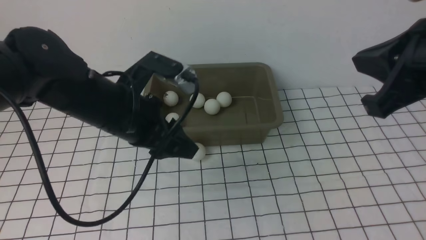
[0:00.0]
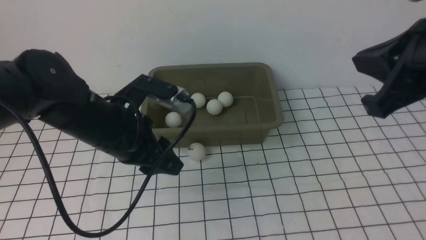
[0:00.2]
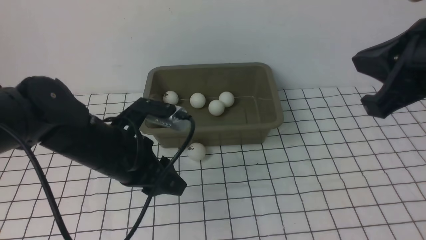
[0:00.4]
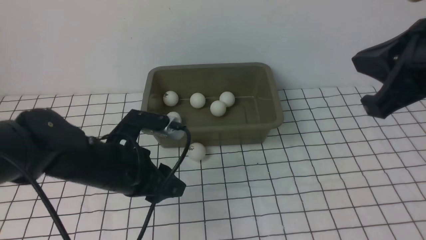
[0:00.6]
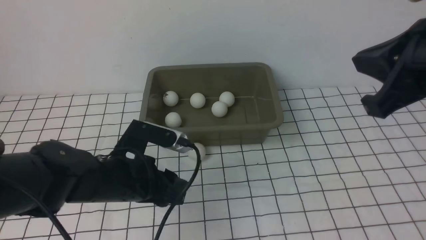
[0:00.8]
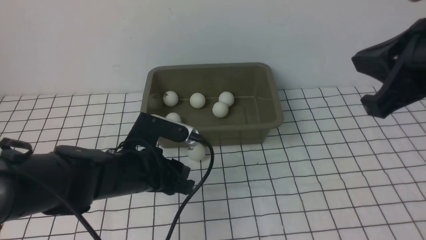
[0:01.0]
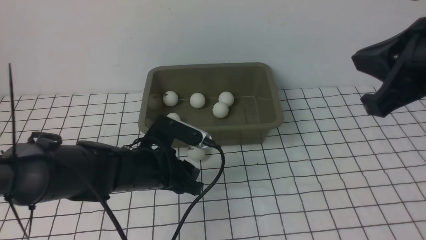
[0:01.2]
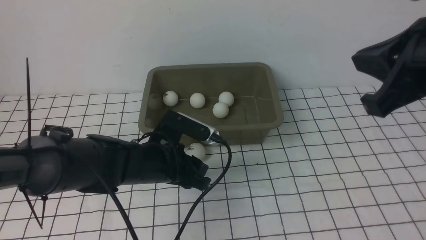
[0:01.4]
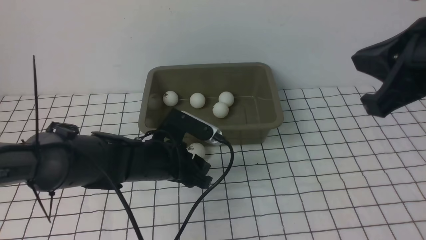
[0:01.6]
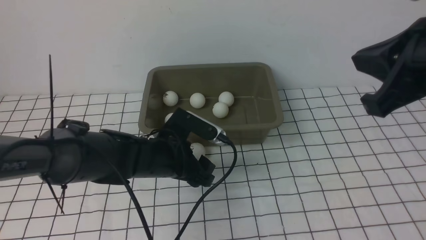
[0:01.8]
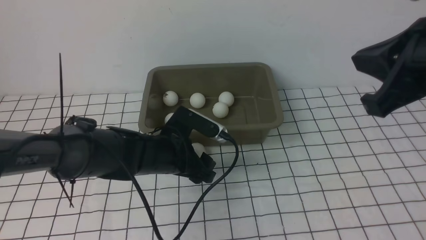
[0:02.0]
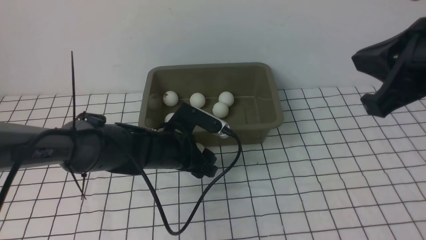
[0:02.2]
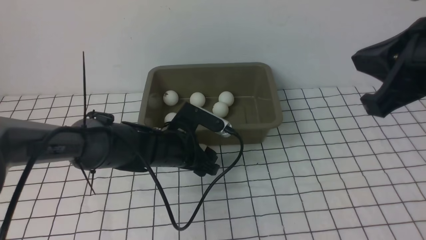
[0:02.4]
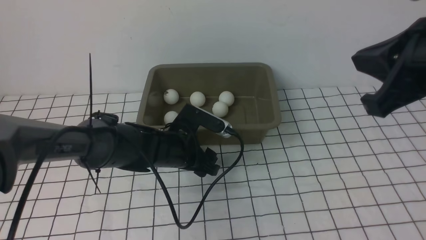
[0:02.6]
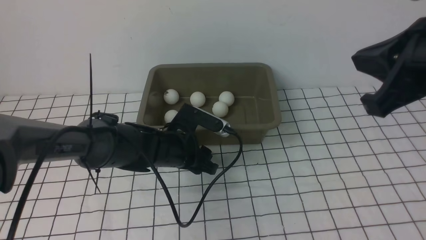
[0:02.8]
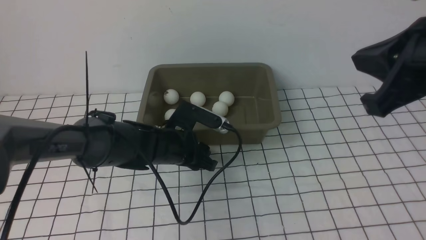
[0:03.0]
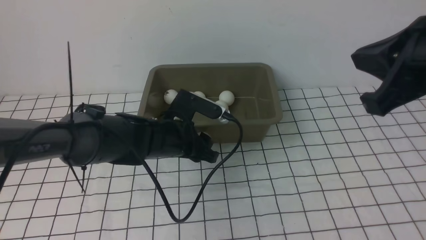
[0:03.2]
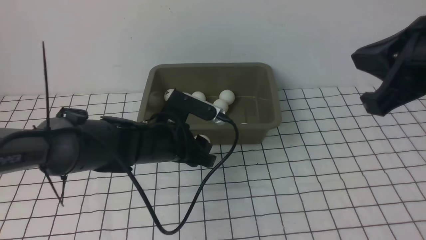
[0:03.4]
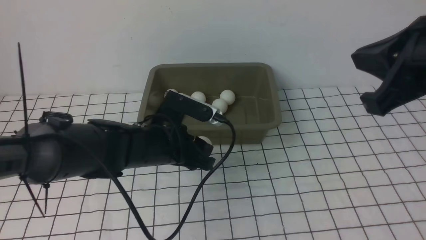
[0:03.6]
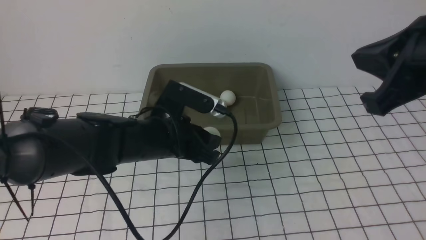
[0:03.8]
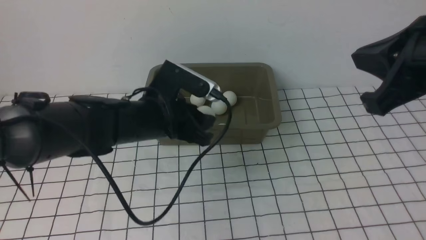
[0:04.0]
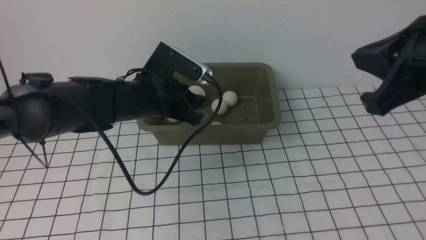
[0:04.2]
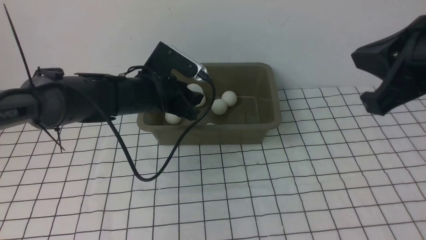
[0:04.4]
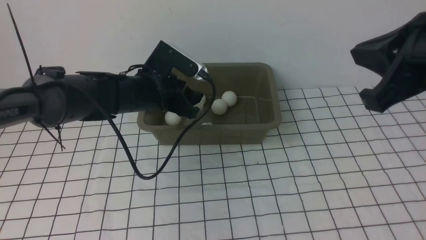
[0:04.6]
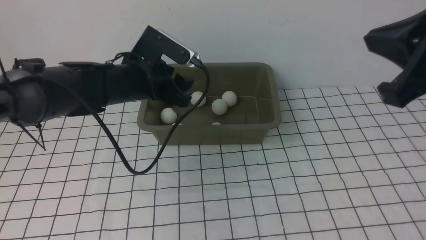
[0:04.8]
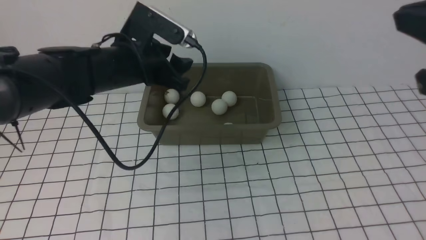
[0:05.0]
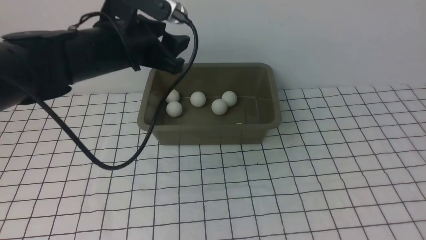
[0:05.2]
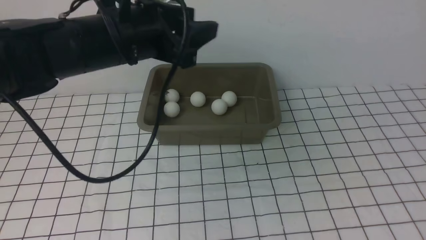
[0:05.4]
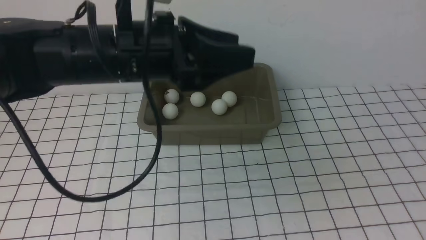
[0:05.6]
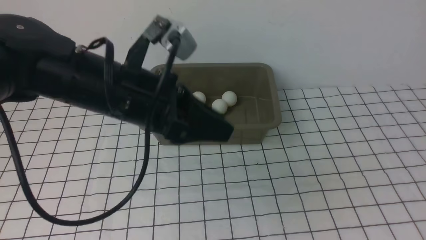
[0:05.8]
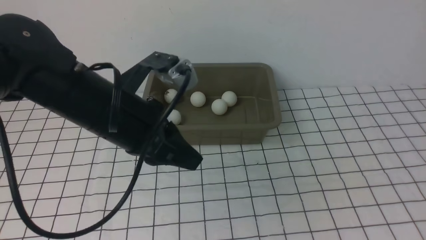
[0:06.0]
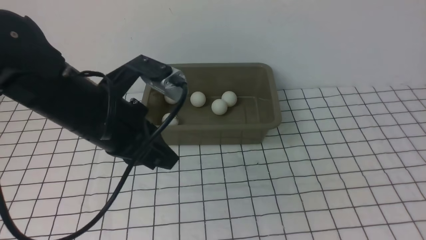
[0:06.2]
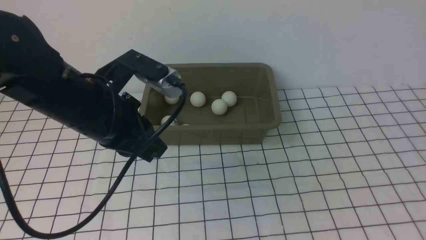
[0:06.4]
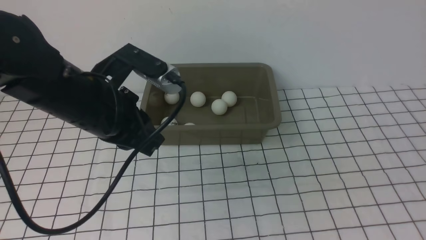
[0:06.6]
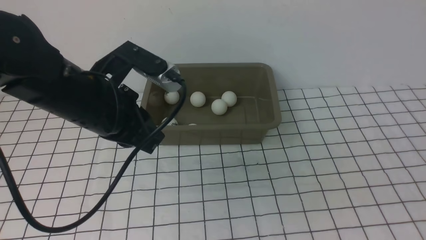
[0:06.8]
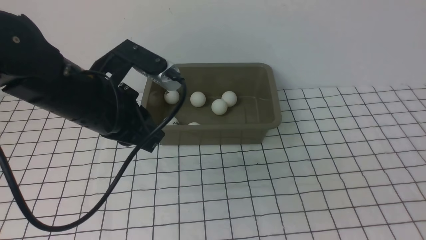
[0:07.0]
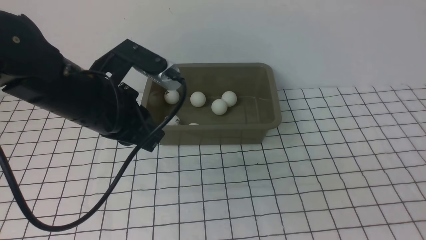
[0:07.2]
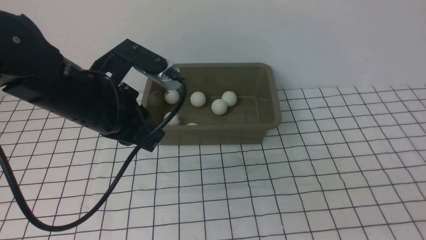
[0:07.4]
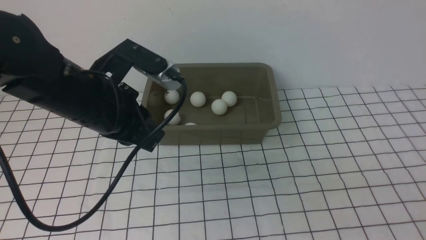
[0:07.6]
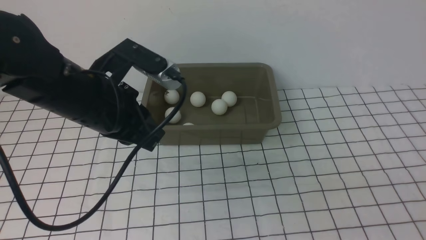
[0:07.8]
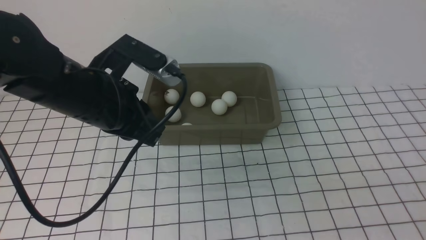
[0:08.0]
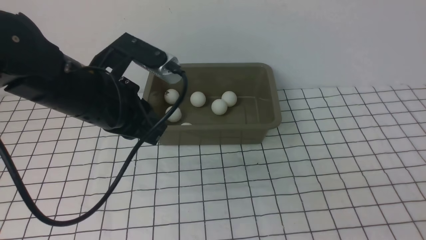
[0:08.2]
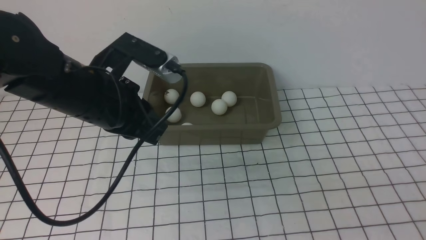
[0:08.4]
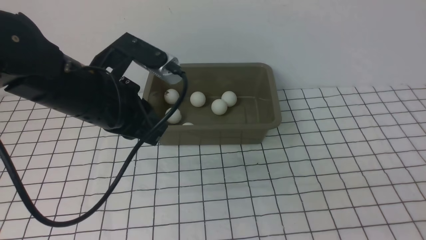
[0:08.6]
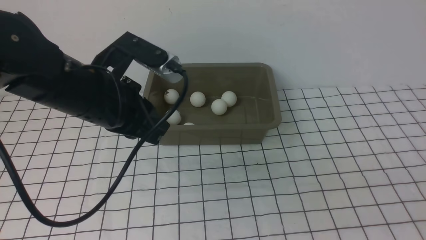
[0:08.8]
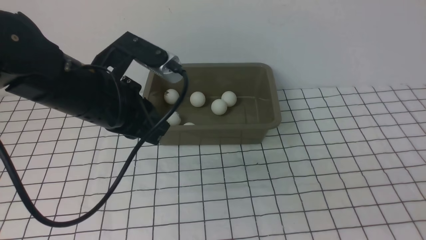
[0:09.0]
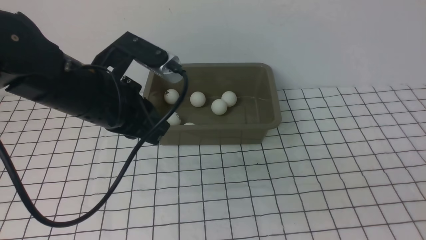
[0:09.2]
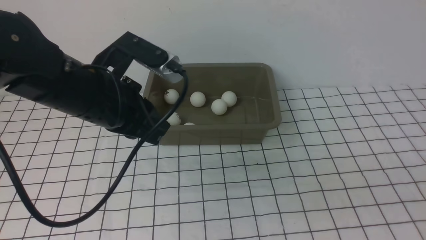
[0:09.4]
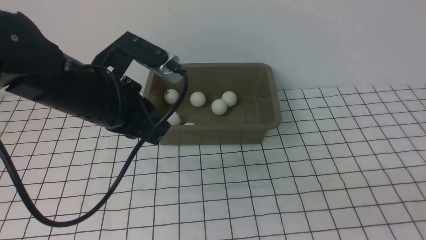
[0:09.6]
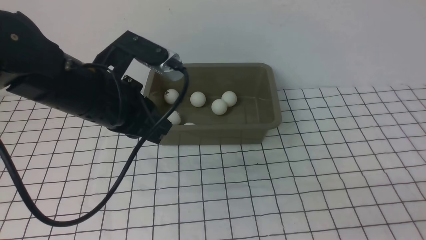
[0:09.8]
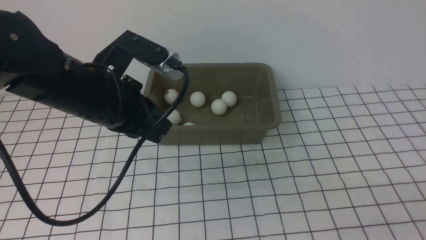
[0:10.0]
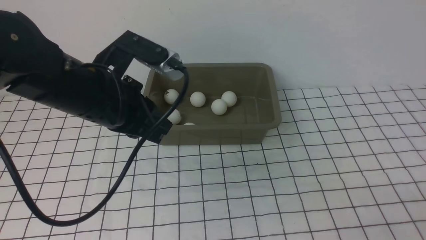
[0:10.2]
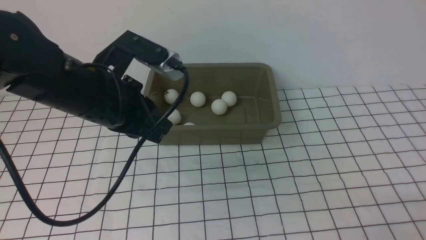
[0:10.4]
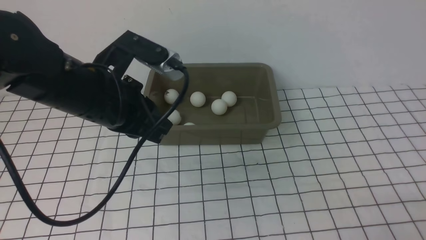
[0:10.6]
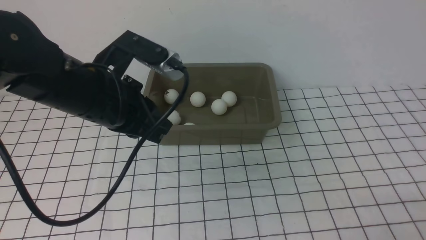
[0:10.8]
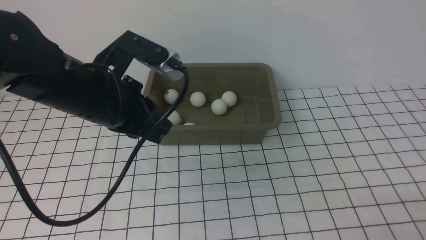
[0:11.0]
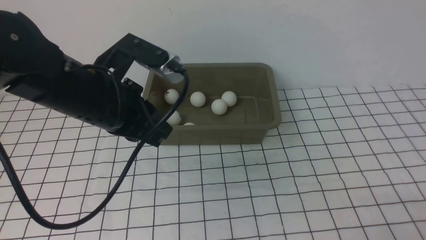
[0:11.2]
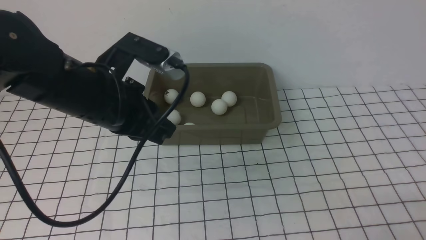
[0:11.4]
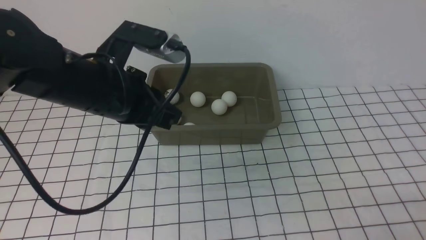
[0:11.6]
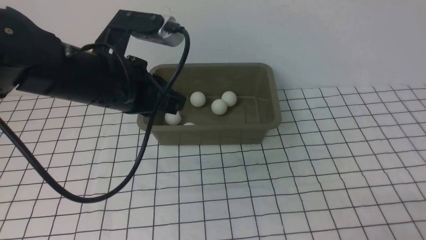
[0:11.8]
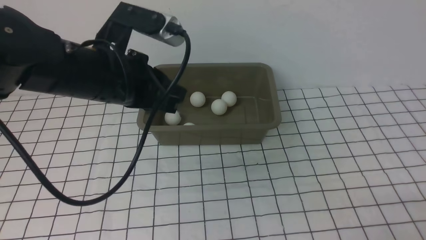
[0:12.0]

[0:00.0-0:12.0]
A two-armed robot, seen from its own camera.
Step, 0.0 to 3.2 s: use the left arm to clamp the table tennis ball closest to it.
Step, 3.4 to 4.8 s: use the left arm to put the table tennis ball into the box.
0.0 to 1.6 s: The left gripper is displaced forward and downward by some 10 cm.
1.6 to 3.0 s: The left gripper goes some 5 cm upward.
3.0 to 4.4 s: The left gripper goes roughly 10 cm forward.
4.4 to 6.0 s: The left gripper moves backward and upward, roughly 15 cm, and closes its fingers. The right gripper goes approximately 10 cm backward.
6.0 to 7.6 s: The right gripper goes approximately 20 cm downward.
7.6 to 9.0 s: The grippers move only a little.
9.0 to 10.4 s: The right gripper travels downward by approximately 10 cm.
10.4 to 12.0 s: There are only small adjustments of the grippers.

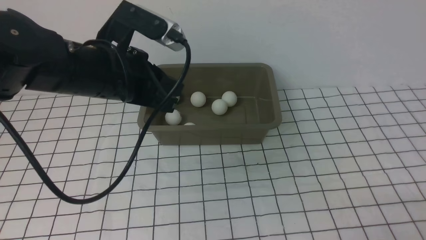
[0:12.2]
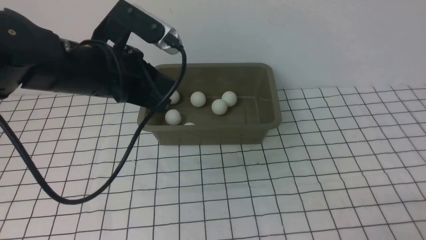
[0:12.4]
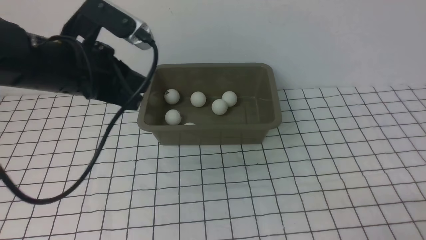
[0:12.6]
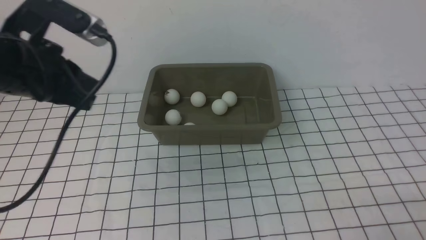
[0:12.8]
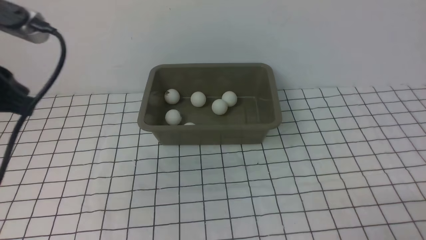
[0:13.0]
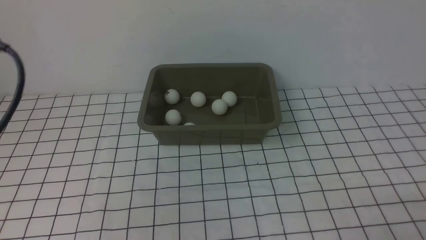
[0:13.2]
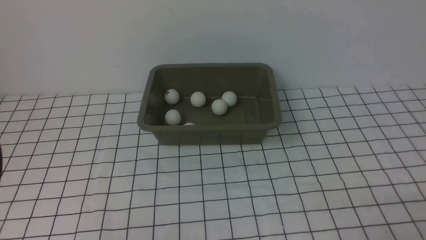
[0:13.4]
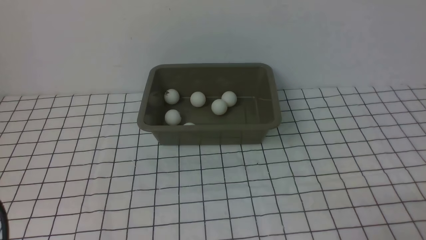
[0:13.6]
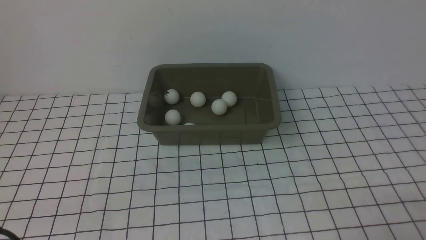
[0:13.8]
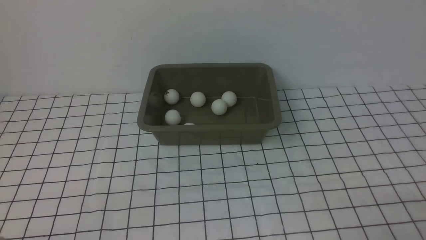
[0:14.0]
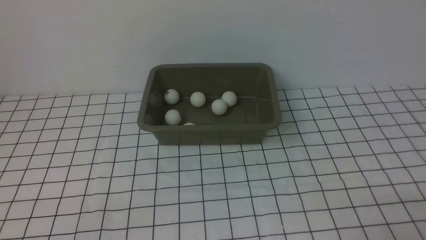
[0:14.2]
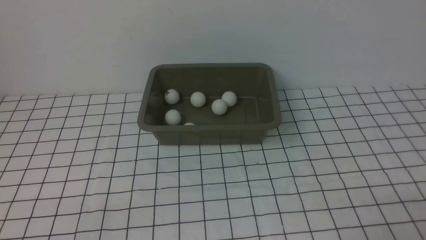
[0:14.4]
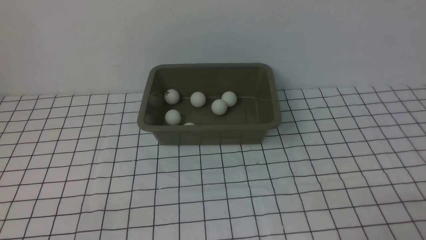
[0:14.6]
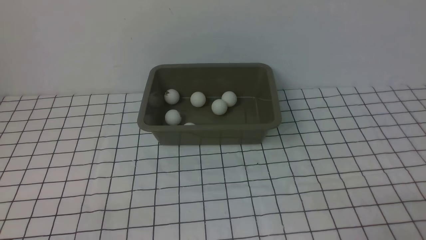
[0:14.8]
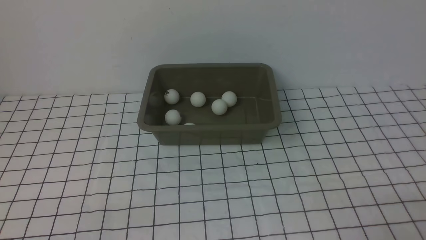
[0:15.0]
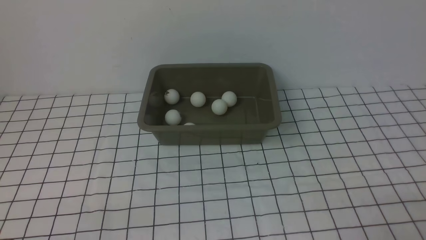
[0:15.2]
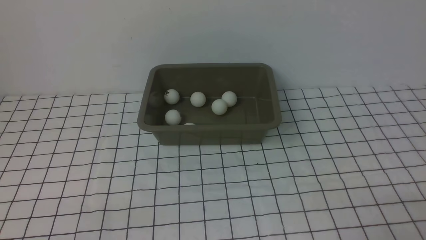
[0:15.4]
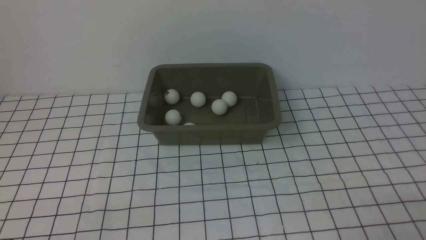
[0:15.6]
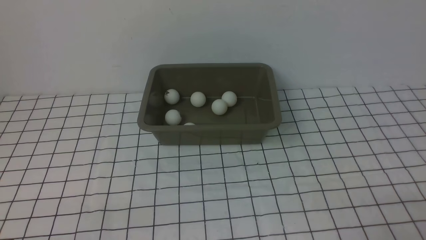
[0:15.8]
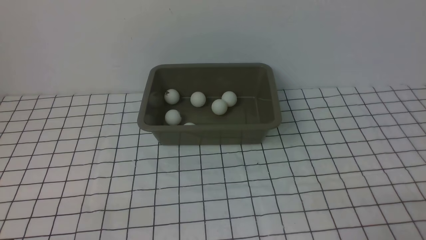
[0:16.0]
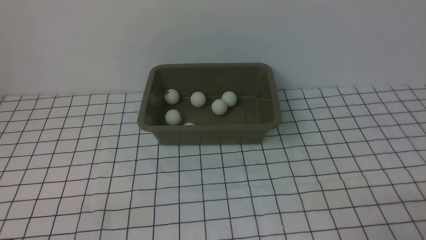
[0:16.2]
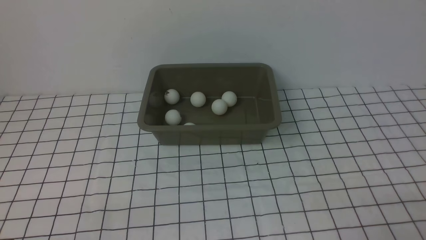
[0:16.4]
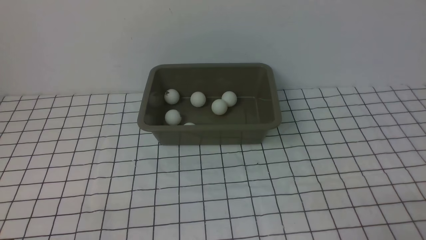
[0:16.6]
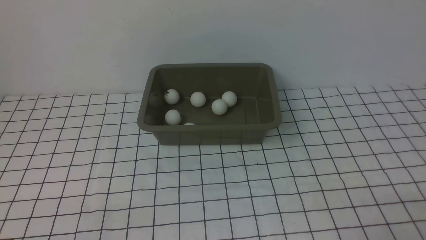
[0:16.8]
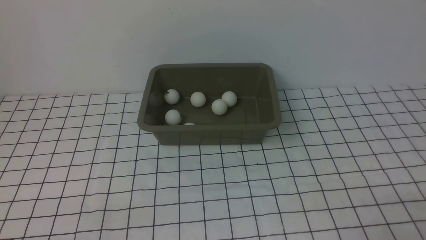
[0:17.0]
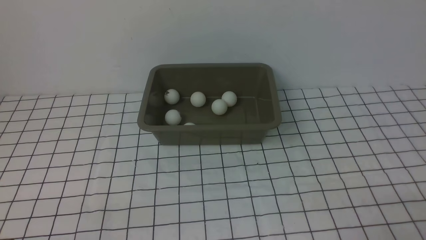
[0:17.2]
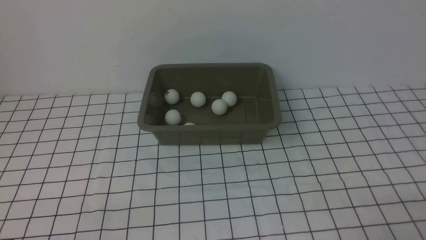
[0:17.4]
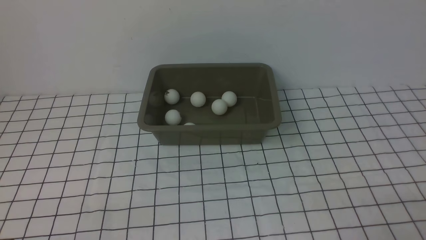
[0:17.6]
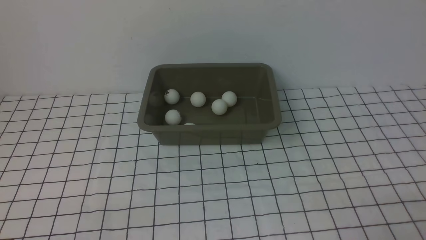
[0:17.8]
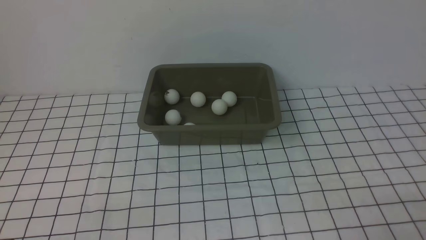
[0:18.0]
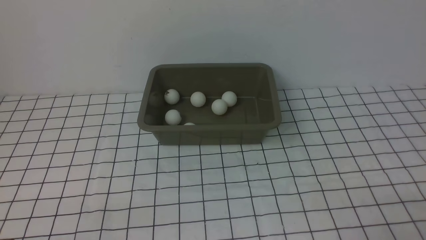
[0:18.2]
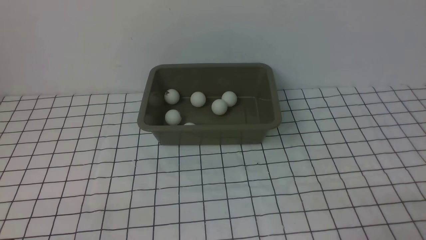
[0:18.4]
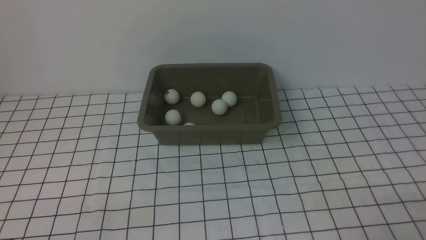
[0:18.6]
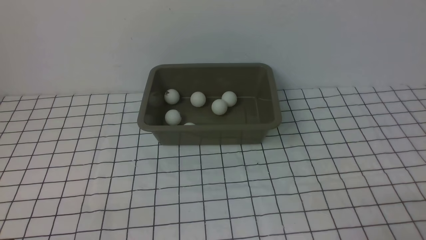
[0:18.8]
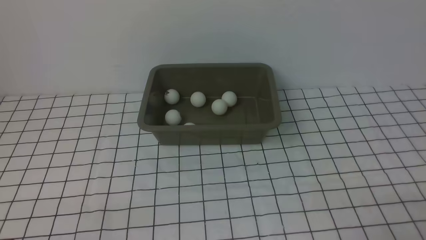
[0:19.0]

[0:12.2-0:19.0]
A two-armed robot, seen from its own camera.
12.2 to 13.6 s: The left gripper goes roughly 25 cm backward and to the left.
15.0 to 19.0 s: Both grippers stay put.
